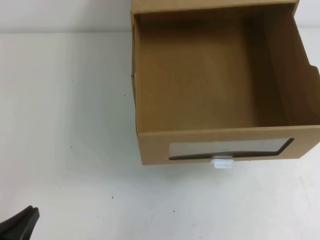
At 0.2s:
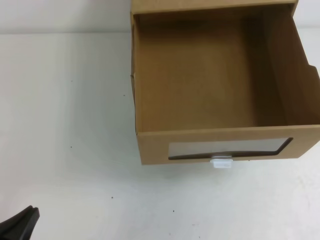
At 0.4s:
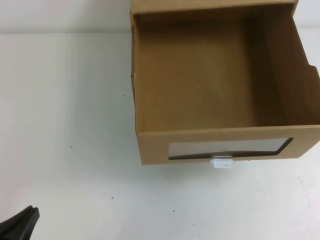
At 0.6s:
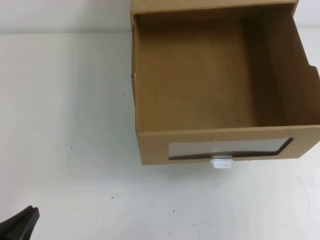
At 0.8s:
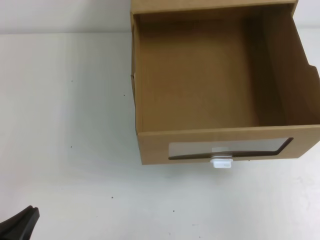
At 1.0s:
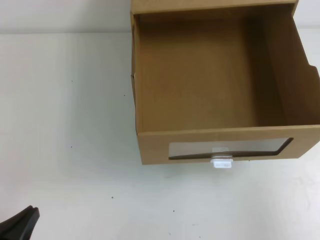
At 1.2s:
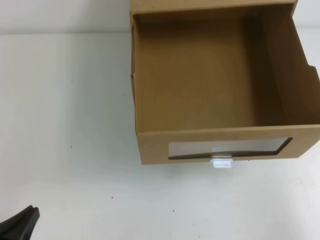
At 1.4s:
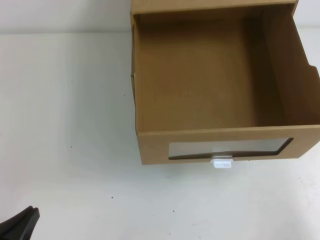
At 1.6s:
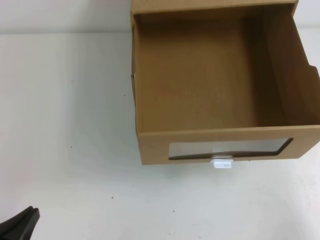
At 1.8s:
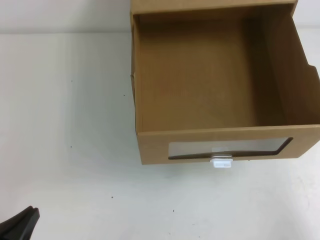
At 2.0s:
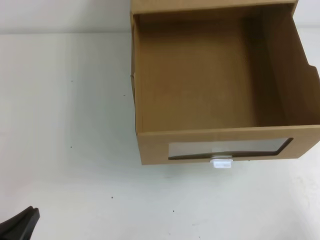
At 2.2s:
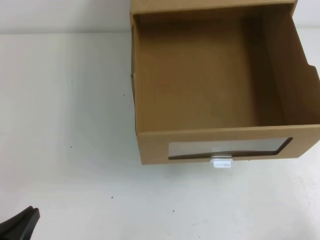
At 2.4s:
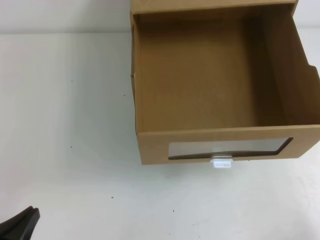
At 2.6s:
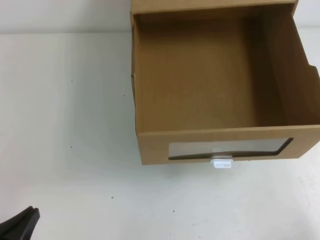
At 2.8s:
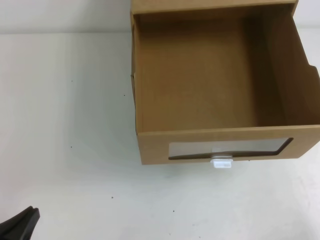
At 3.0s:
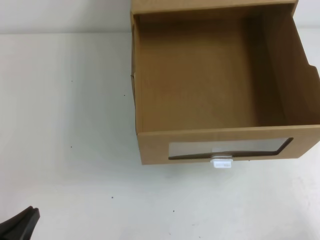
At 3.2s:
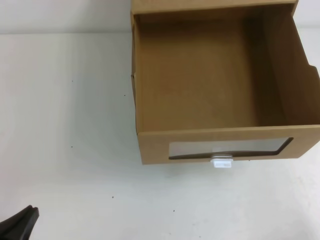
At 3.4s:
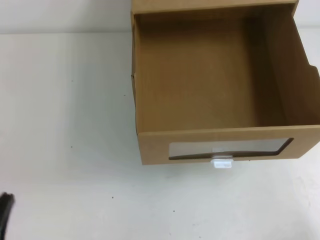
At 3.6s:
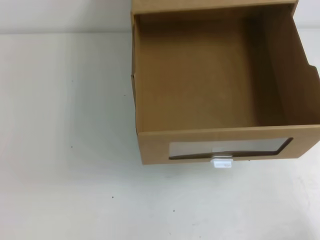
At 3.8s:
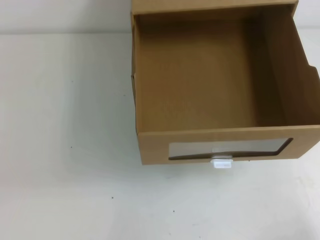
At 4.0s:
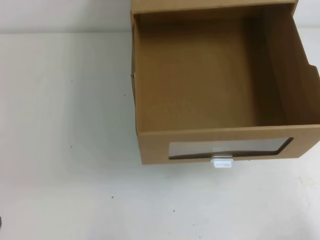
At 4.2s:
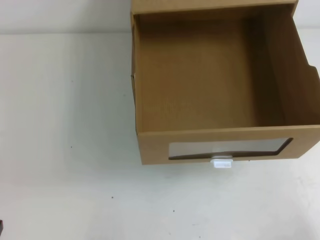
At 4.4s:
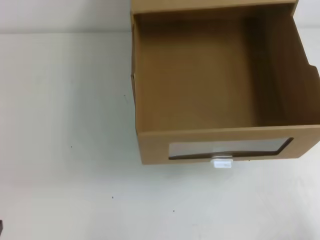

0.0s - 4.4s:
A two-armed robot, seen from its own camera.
Task of the whole recording: open the shoebox on the table.
Step, 0.0s - 4.4s: Open the shoe box.
0.0s - 1.4s: The right gripper is displaced downward by about 20 cm.

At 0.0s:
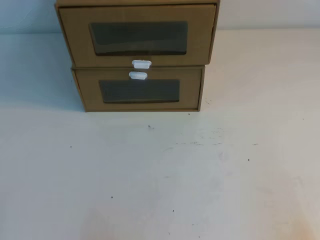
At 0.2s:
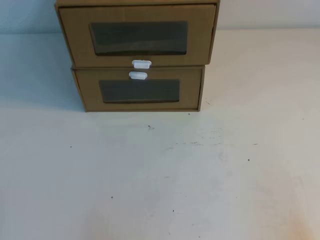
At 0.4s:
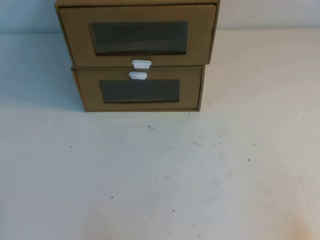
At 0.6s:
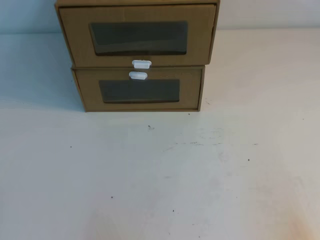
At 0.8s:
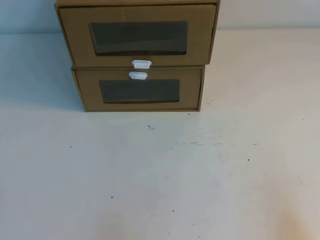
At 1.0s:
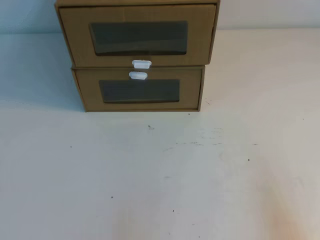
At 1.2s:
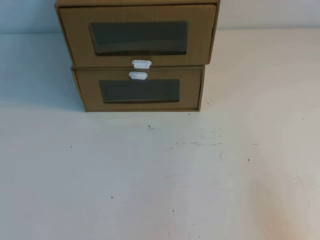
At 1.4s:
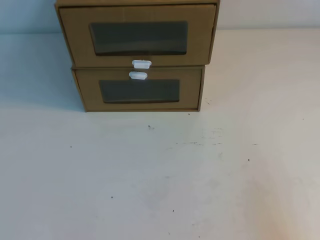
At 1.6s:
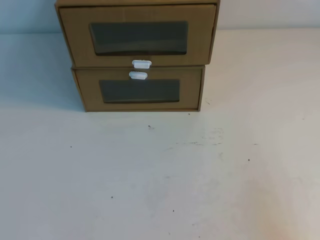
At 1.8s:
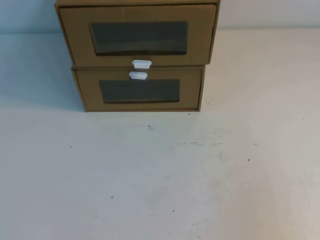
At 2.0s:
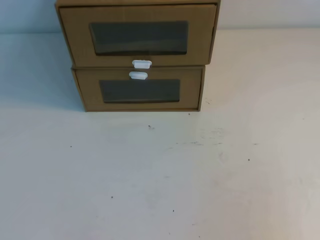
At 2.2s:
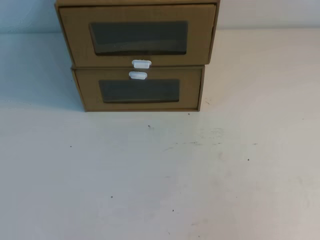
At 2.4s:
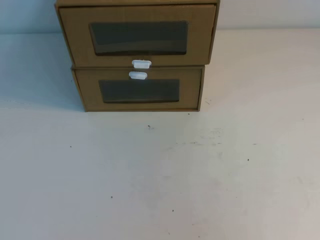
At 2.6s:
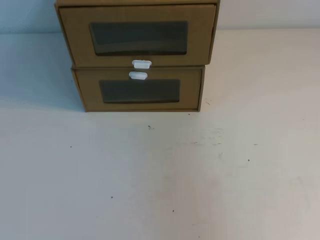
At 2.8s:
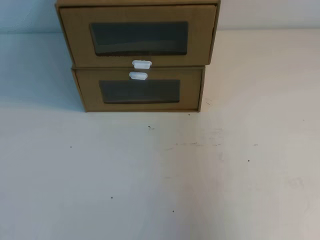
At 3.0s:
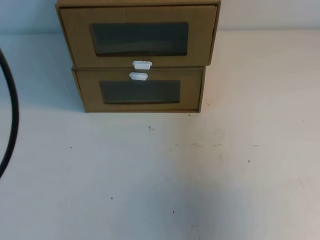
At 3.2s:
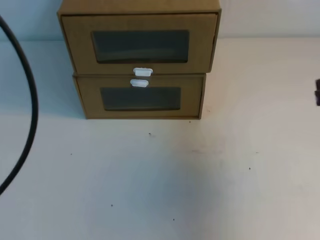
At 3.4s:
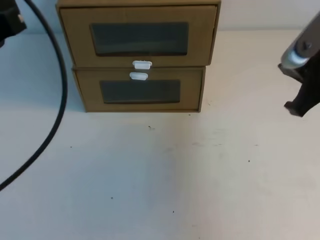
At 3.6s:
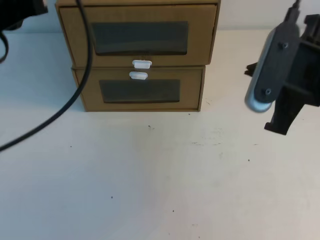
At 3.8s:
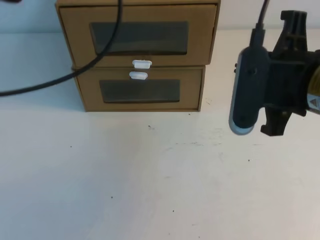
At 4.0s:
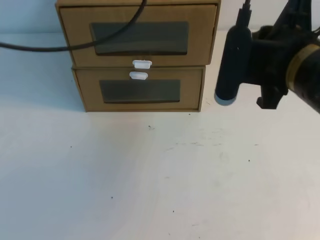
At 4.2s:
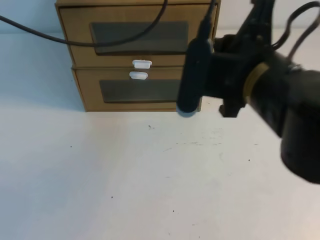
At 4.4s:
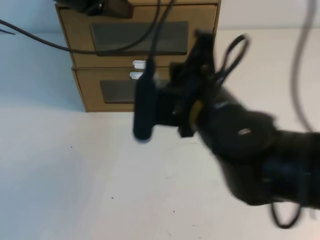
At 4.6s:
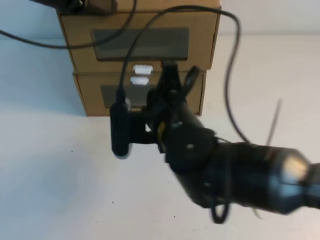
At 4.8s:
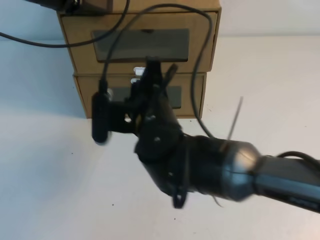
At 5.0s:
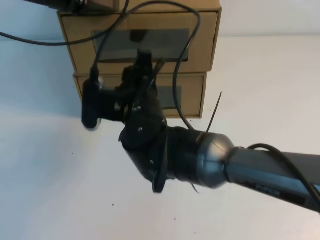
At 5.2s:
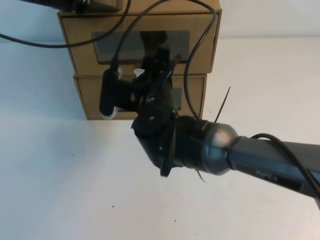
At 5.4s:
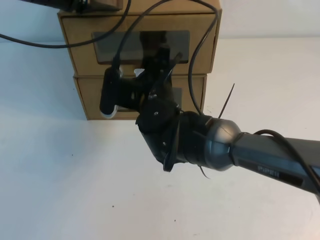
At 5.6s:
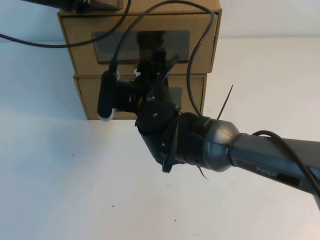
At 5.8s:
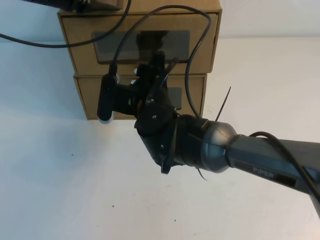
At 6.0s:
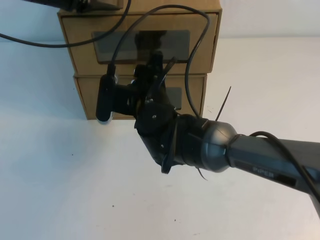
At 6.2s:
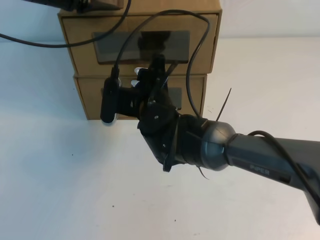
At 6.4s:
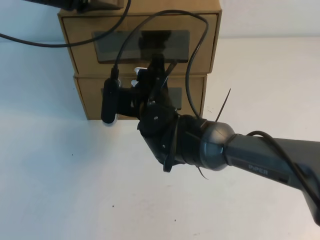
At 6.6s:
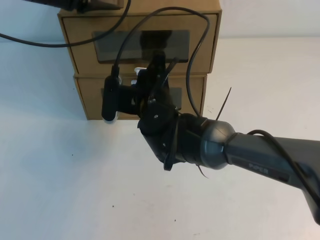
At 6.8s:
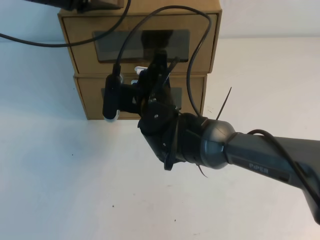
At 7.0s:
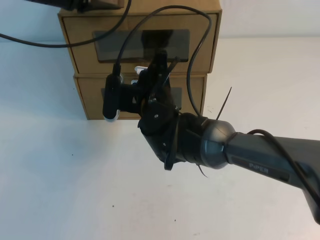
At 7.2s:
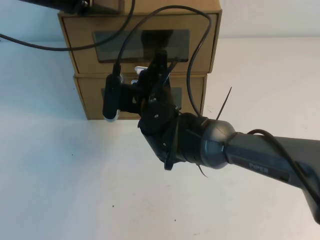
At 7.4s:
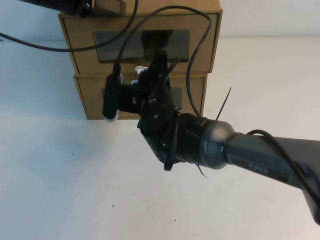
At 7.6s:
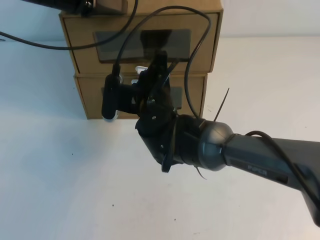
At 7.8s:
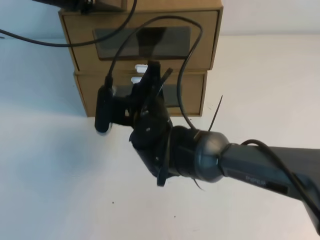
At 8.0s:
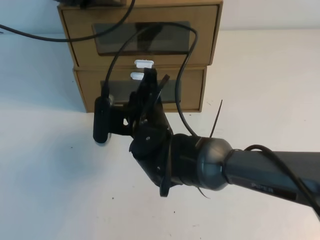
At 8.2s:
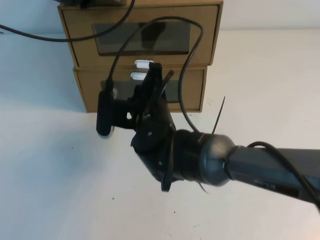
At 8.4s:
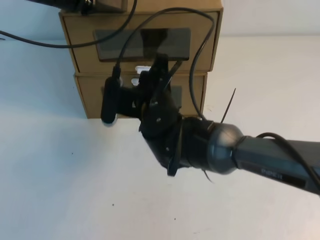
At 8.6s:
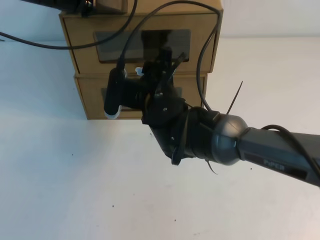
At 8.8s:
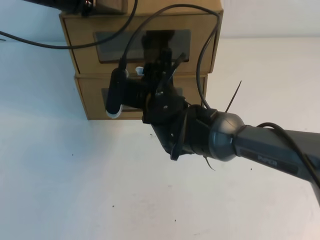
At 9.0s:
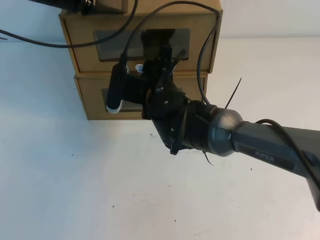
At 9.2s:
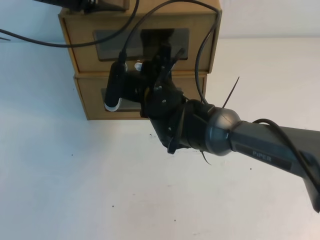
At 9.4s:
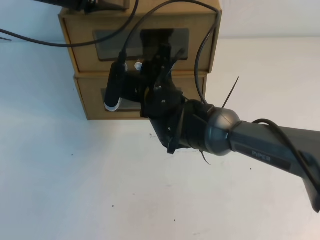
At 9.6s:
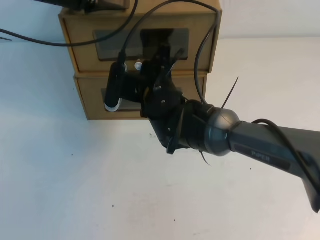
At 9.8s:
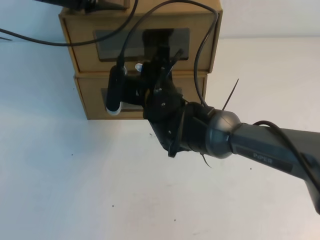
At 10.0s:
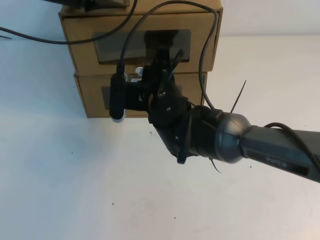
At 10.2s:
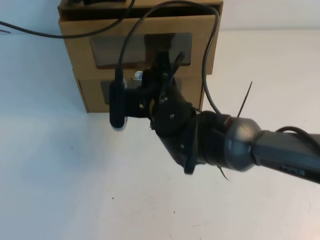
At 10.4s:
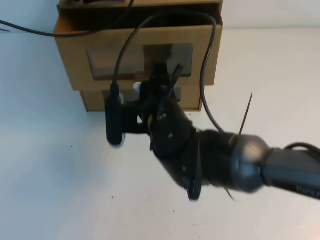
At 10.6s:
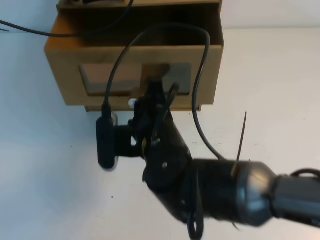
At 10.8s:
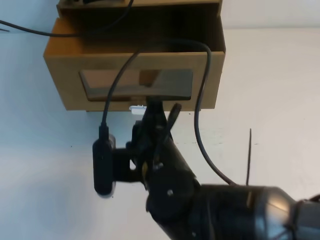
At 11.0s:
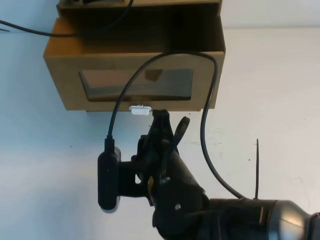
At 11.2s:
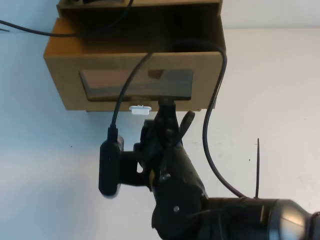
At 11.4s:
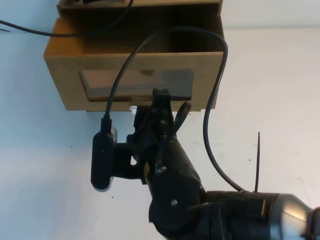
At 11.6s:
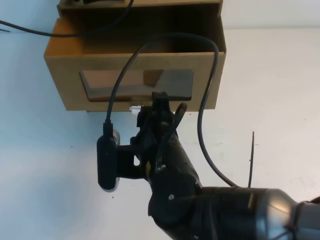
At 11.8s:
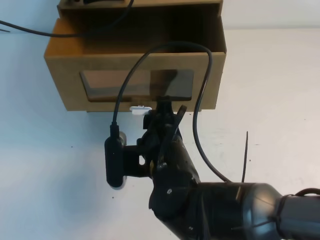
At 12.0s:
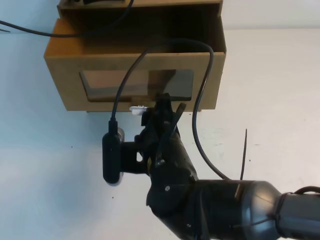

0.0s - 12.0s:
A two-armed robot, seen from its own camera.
Task of the whole recording: open the shoebox on the table.
1.6s - 3.0s: The right gripper travels forward and upward by roughly 20 cm. The left gripper shifts roughly 25 cm upward and forward.
3.0s - 4.4s: The right gripper is displaced to the left by some 25 cm, while the left gripper is displaced forward by approximately 25 cm.
4.4s - 6.0s: The right gripper goes about 15 cm forward, to the left and downward, and opens up.
6.0s - 7.6s: The right gripper closes its fingers.
7.6s - 9.0s: The right gripper opens its fingers.
9.0s - 10.4s: The right gripper shifts about 5 cm backward.
10.4s - 12.0s: The right gripper heads backward, covering some 5 cm, and opens up.

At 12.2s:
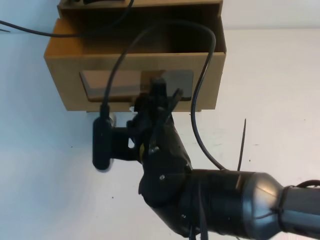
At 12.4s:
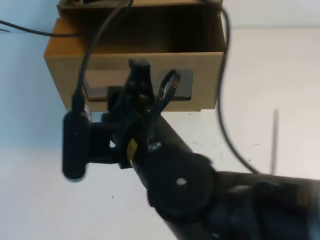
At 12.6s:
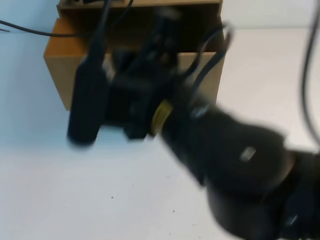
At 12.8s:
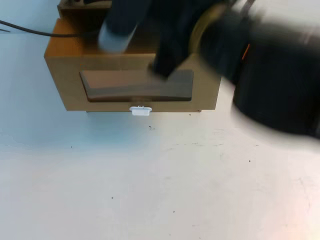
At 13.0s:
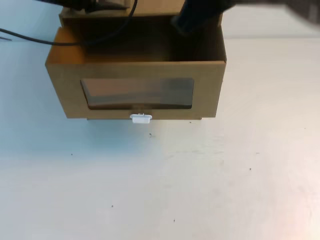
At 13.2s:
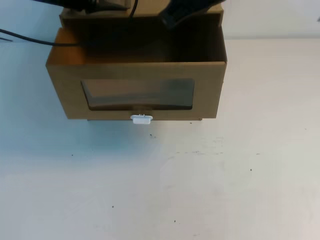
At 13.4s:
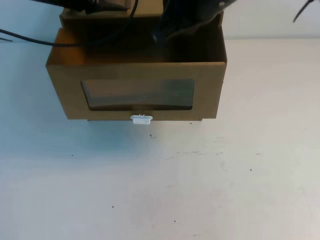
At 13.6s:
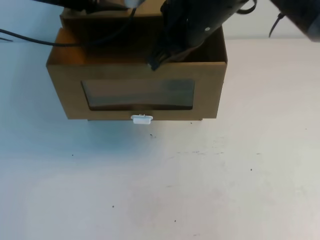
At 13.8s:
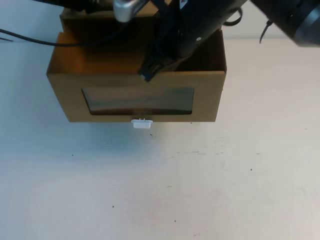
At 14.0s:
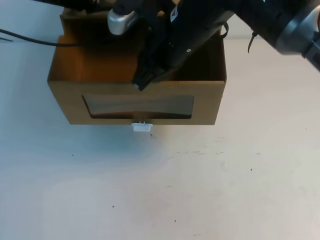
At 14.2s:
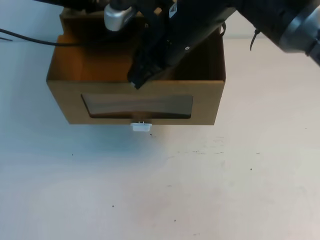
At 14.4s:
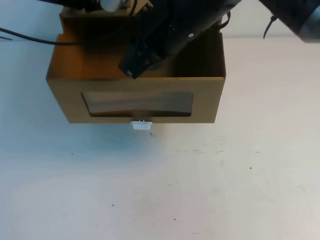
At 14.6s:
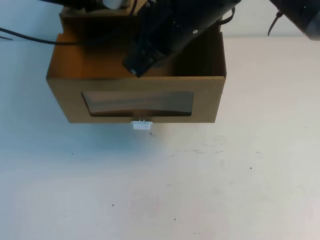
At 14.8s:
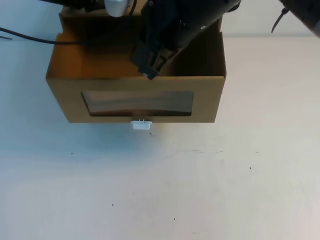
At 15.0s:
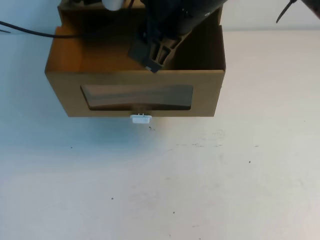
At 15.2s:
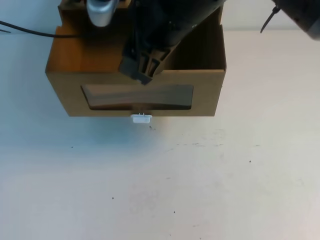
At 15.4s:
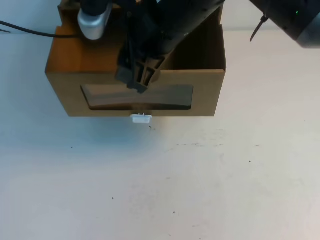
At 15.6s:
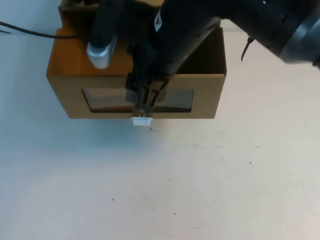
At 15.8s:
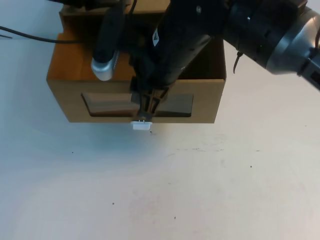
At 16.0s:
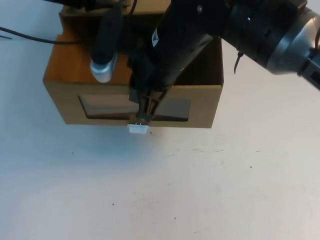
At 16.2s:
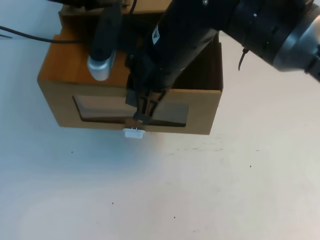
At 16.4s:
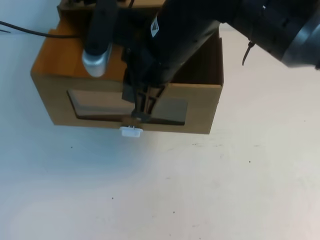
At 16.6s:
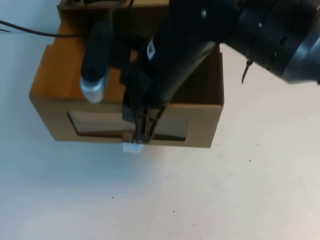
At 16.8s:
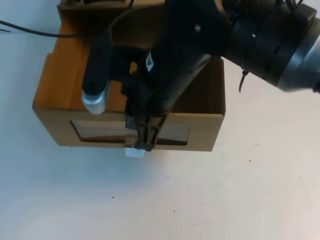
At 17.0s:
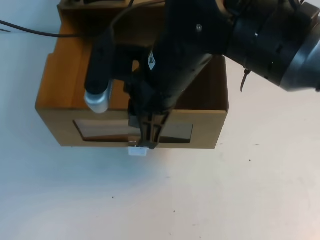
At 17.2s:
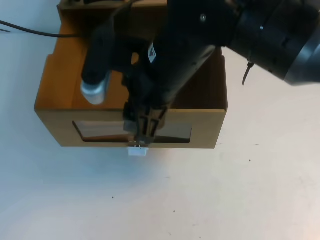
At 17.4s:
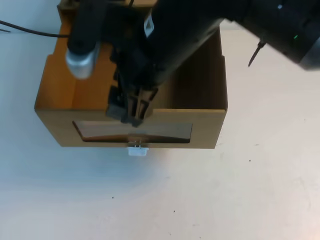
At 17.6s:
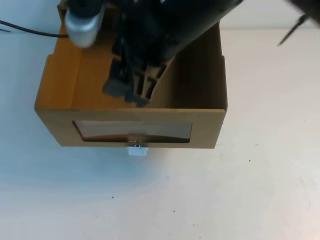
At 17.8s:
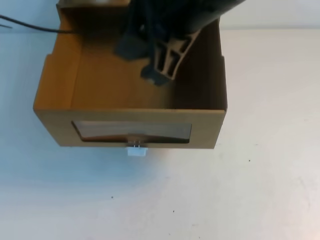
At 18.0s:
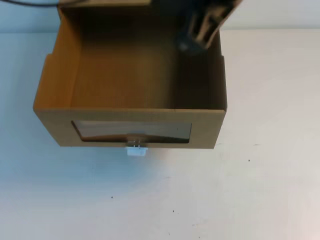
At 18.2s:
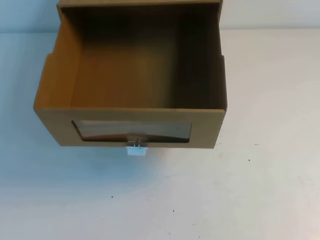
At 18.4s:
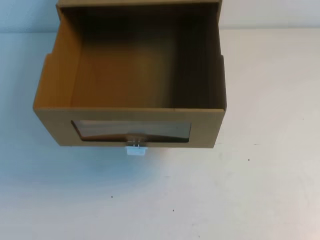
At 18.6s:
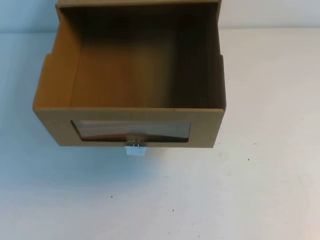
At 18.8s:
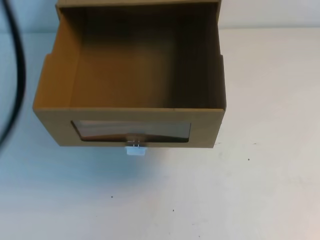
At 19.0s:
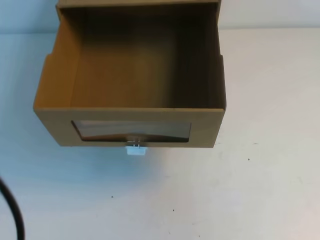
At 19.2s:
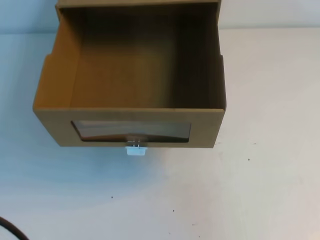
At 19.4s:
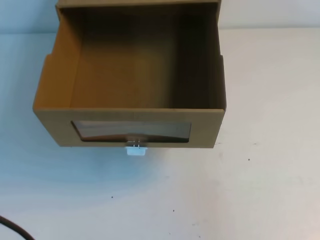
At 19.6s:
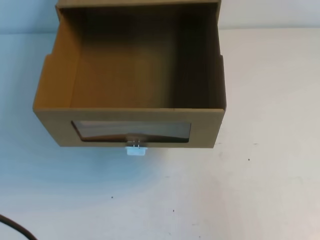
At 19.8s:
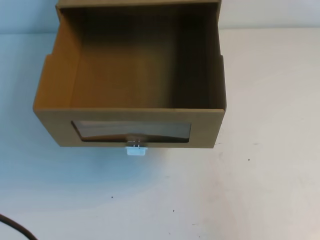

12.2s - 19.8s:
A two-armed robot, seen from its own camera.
Task of the whole recording: open the shoebox on the table.
12.2s - 13.8s: The right gripper goes about 20 cm upward, forward and to the right, and closes up.
13.8s - 15.2s: The right gripper ends up roughly 5 cm from where it was, and opens.
15.2s - 16.8s: The right gripper heads downward, covering some 5 cm, and closes up.
16.8s - 18.2s: The left gripper heads upward and backward, covering roughly 20 cm; the right gripper shifts some 25 cm upward, to the right and backward, and opens, then closes once more.
